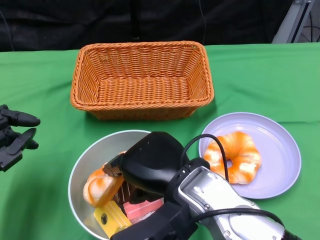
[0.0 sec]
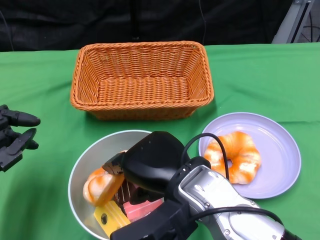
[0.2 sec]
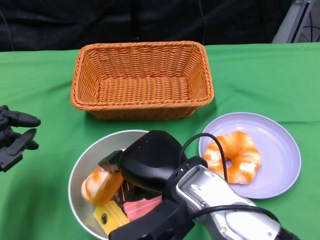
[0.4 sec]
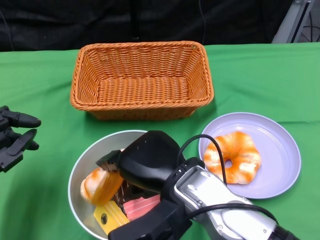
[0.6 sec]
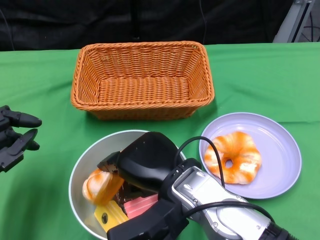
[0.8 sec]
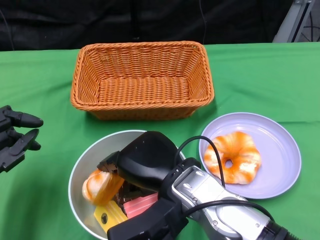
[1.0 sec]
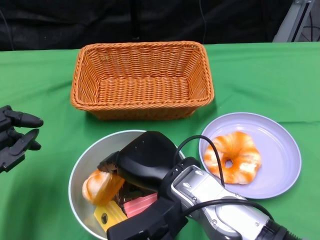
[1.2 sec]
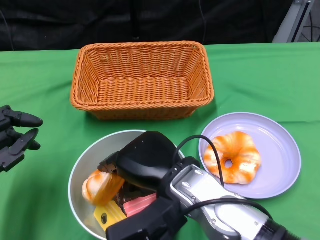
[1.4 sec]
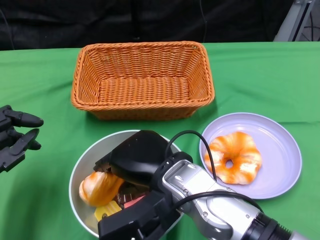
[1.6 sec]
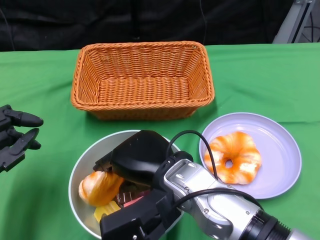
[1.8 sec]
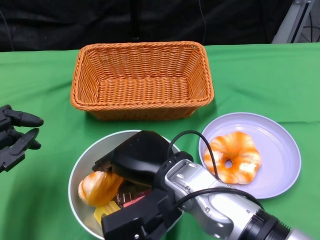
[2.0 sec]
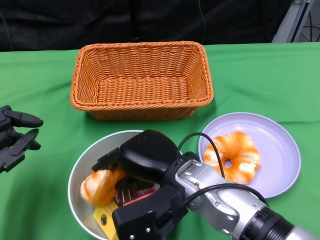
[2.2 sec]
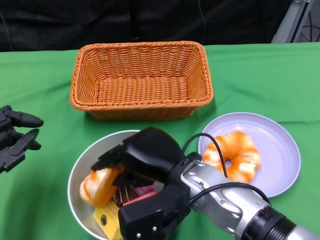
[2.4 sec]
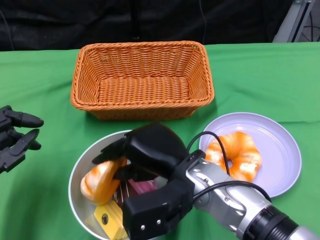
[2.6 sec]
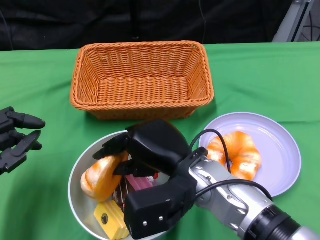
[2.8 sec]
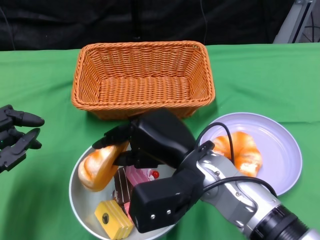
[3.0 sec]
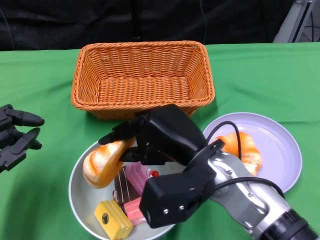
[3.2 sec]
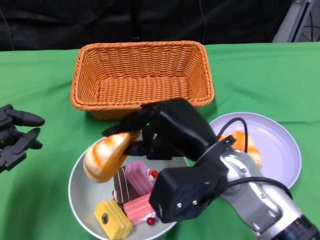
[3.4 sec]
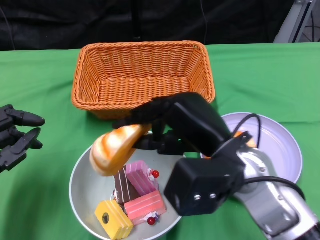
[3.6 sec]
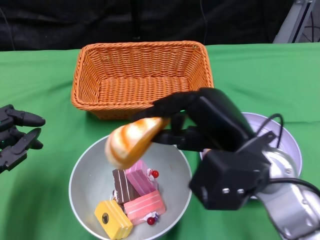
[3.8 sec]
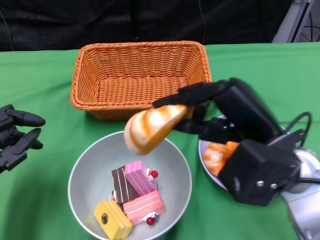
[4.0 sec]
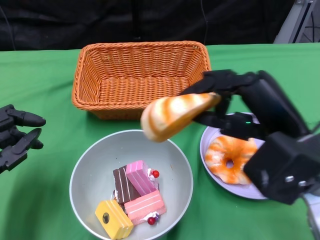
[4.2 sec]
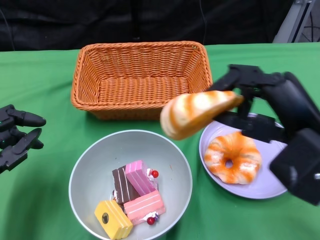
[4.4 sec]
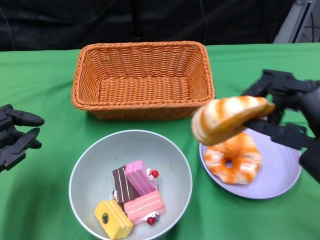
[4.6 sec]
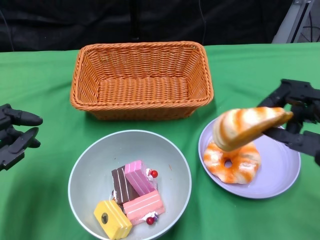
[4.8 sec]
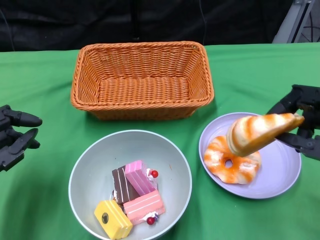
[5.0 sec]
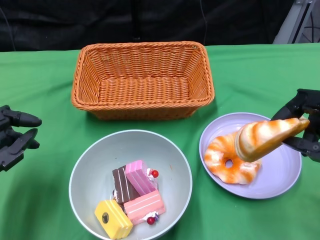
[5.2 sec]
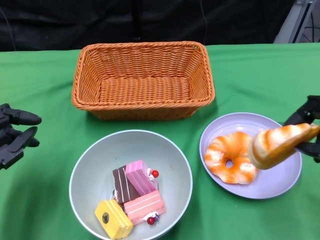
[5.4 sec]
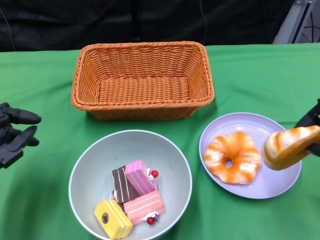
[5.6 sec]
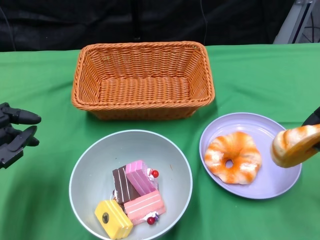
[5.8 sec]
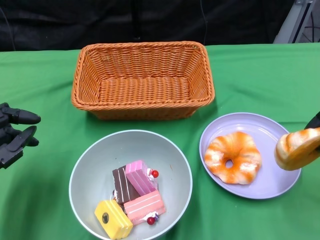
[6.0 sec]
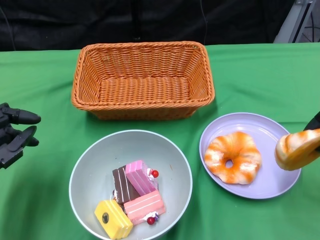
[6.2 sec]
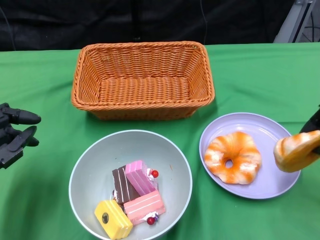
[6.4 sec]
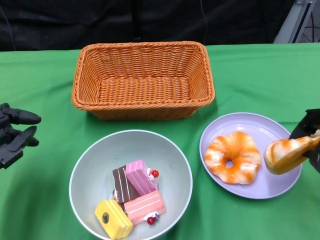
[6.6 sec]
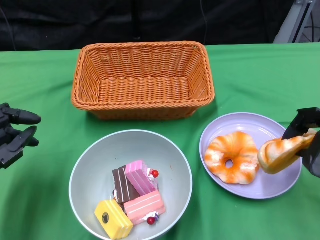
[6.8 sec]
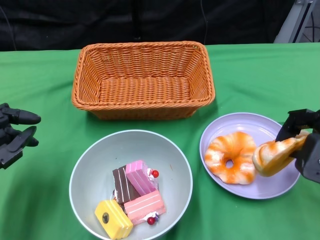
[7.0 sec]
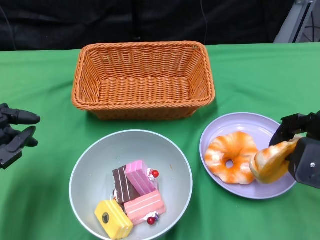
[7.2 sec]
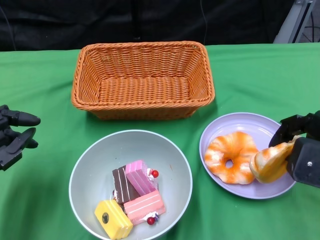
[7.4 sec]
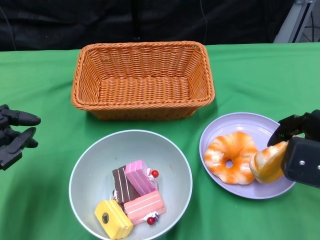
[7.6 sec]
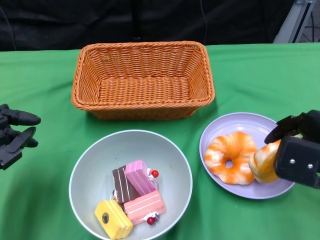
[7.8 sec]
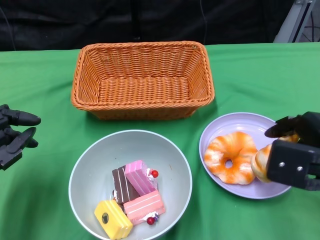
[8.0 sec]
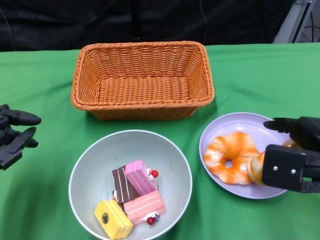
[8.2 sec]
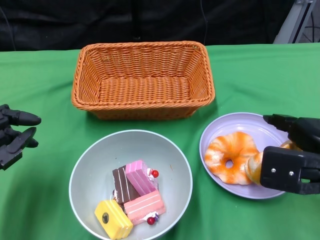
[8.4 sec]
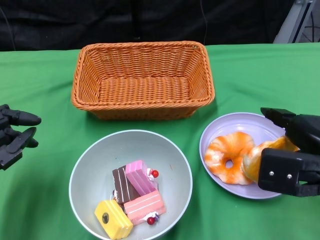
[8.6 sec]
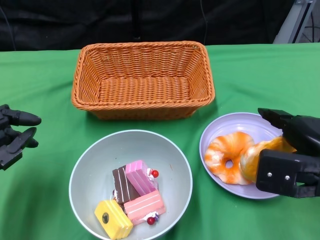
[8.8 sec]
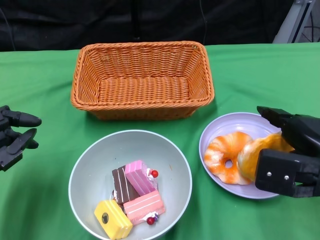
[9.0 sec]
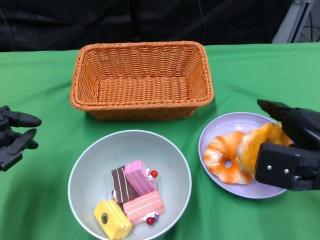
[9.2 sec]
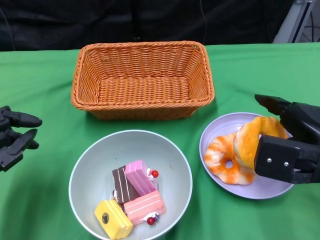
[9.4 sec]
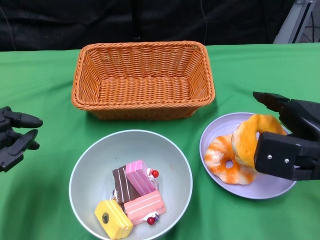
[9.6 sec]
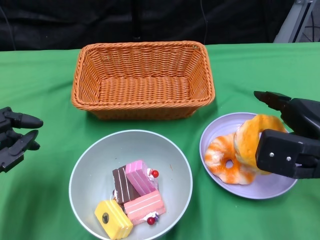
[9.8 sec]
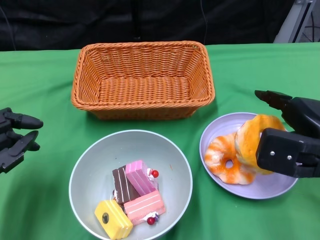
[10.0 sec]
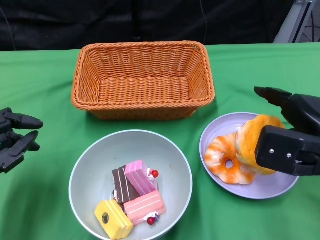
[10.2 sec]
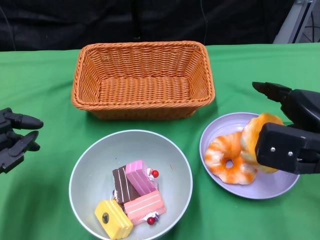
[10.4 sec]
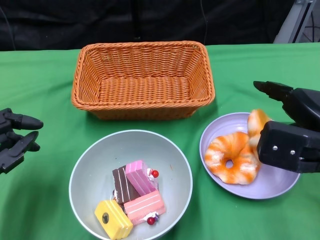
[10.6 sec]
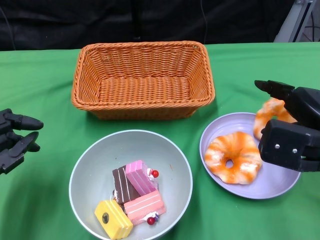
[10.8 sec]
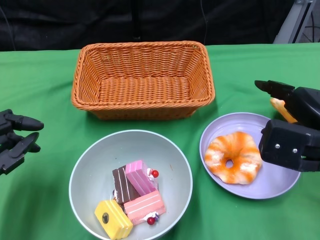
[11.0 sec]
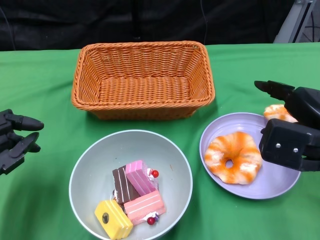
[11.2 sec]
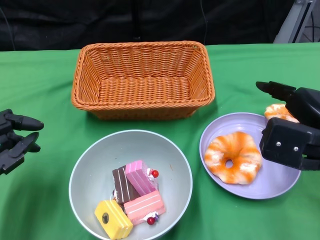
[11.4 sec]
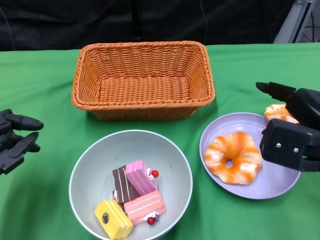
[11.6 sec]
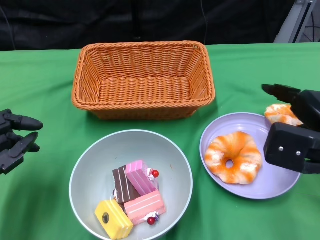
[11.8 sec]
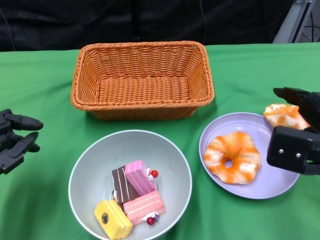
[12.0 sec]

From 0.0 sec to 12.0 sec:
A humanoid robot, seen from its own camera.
From 0.0 sec to 1.6 sec: The hands stay close to where they were, moving slightly.
From 3.0 sec to 4.4 sec: The right hand heads to the right and upward, covering roughly 15 cm.
From 4.4 sec to 6.0 sec: The right hand shifts about 10 cm to the right.
From 6.0 sec to 7.6 sec: The right hand shifts by about 5 cm.
From 7.6 sec to 12.0 sec: The hands make only small movements.

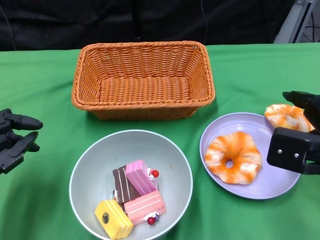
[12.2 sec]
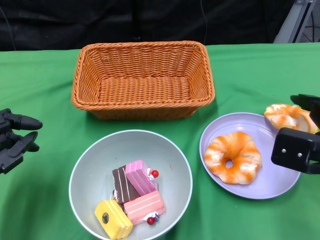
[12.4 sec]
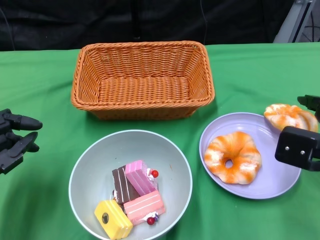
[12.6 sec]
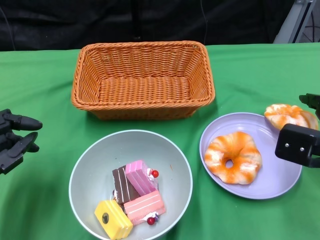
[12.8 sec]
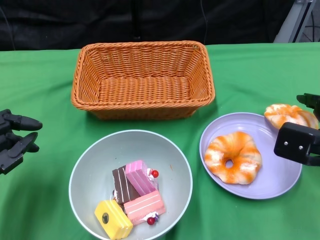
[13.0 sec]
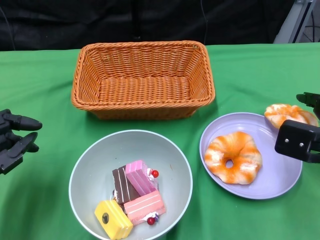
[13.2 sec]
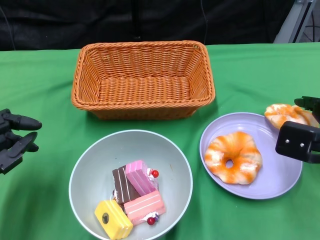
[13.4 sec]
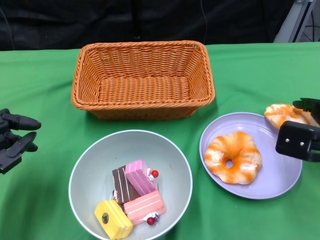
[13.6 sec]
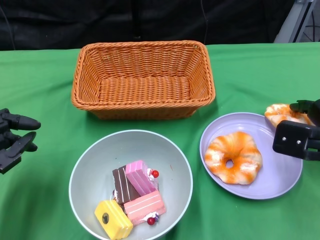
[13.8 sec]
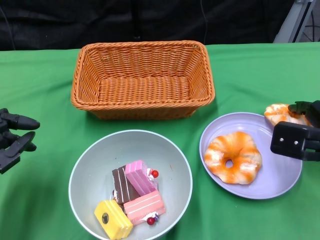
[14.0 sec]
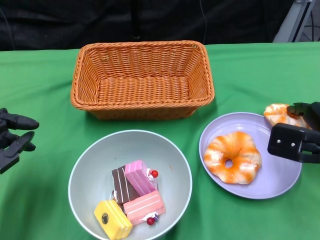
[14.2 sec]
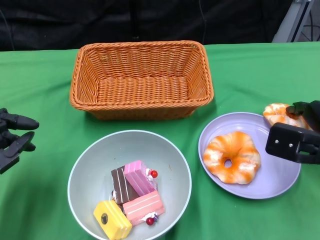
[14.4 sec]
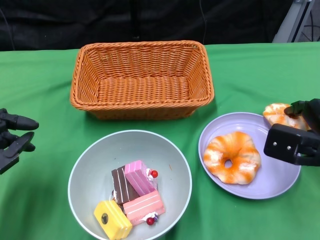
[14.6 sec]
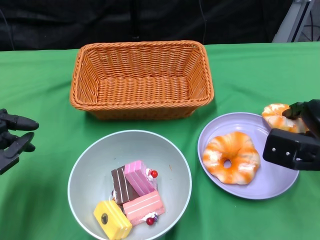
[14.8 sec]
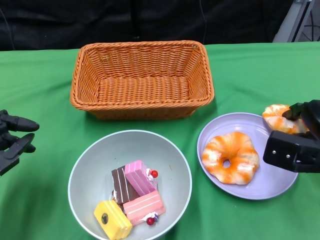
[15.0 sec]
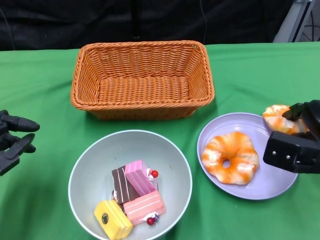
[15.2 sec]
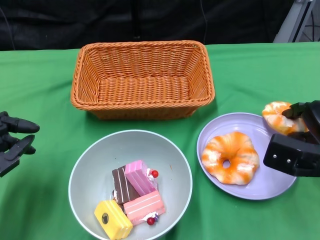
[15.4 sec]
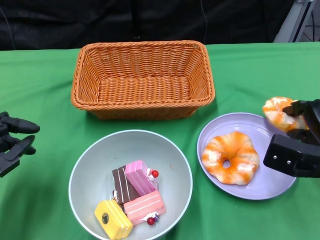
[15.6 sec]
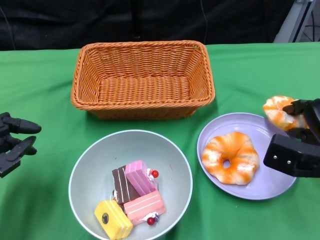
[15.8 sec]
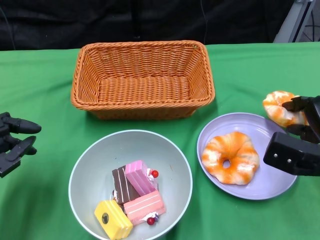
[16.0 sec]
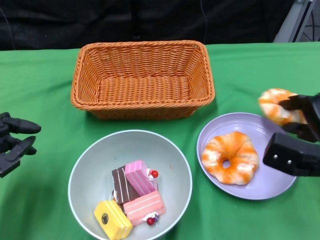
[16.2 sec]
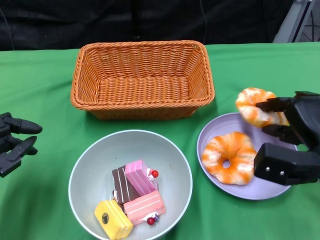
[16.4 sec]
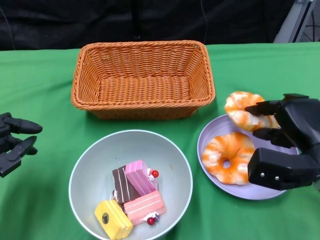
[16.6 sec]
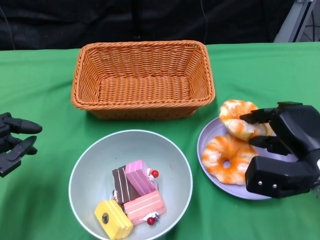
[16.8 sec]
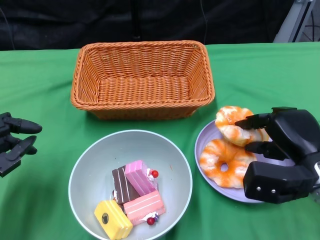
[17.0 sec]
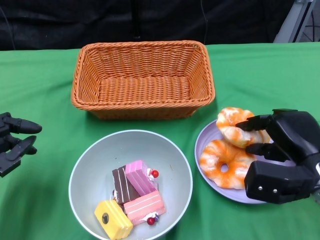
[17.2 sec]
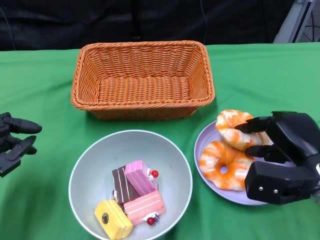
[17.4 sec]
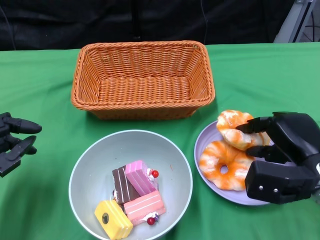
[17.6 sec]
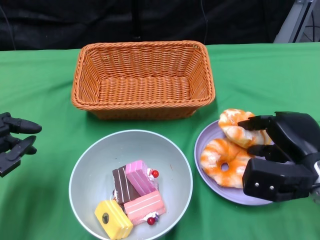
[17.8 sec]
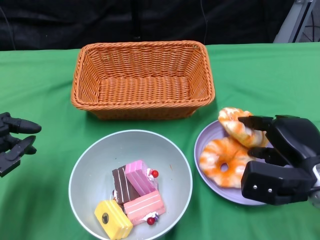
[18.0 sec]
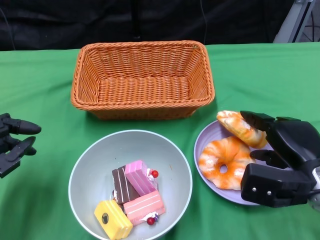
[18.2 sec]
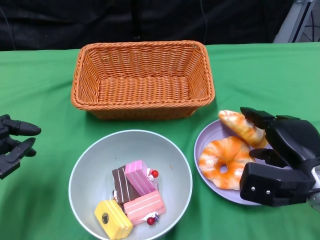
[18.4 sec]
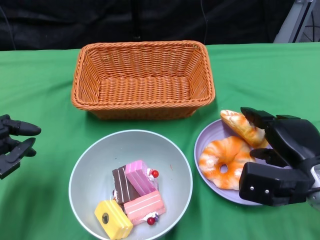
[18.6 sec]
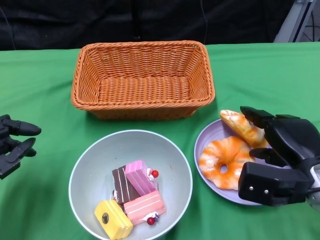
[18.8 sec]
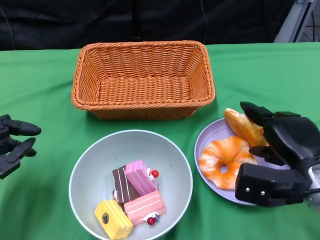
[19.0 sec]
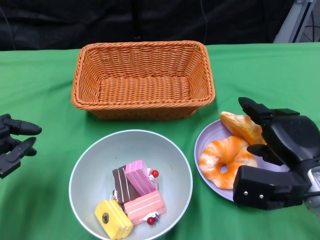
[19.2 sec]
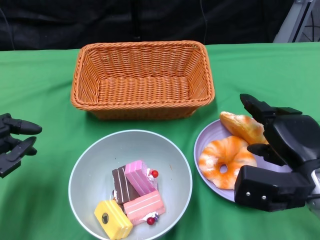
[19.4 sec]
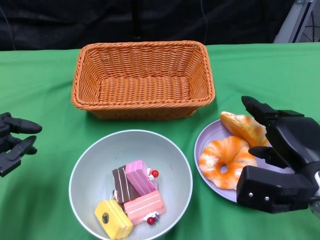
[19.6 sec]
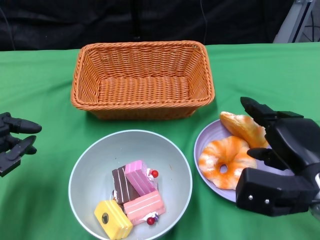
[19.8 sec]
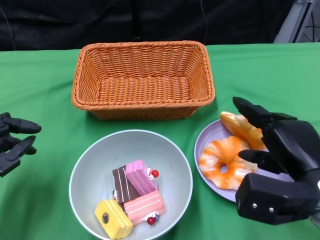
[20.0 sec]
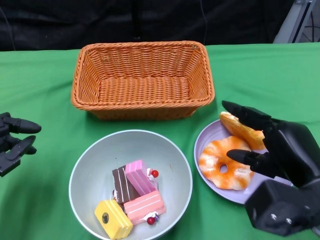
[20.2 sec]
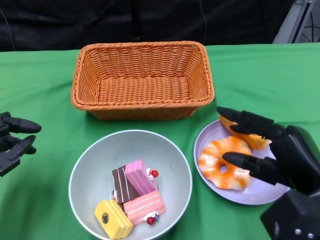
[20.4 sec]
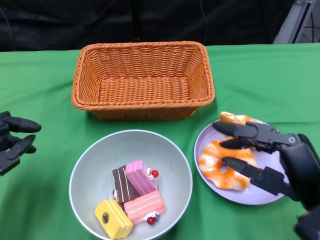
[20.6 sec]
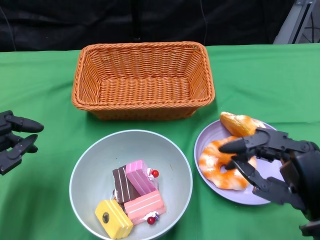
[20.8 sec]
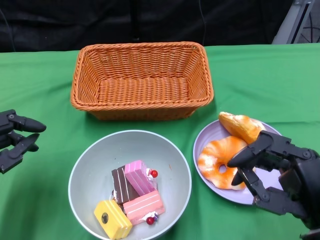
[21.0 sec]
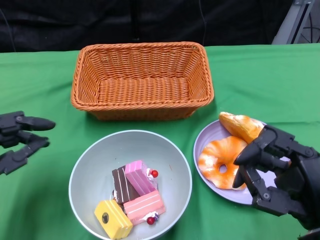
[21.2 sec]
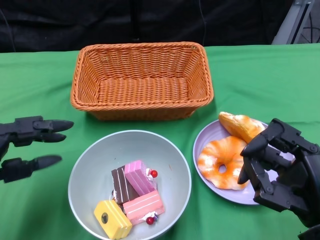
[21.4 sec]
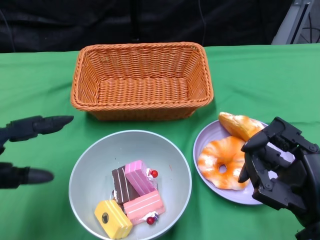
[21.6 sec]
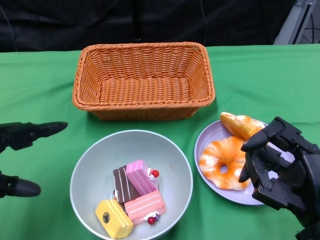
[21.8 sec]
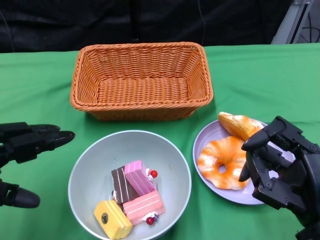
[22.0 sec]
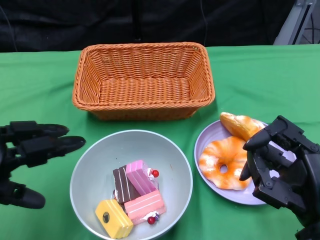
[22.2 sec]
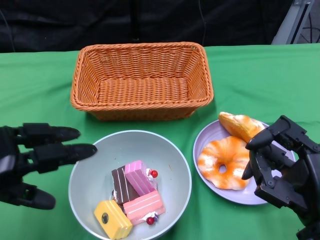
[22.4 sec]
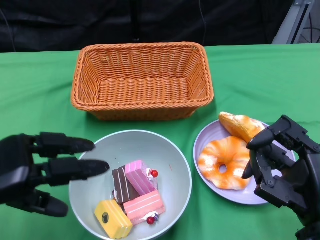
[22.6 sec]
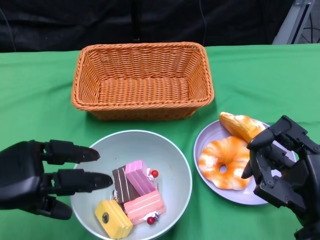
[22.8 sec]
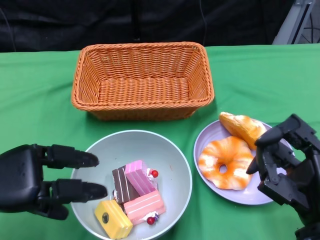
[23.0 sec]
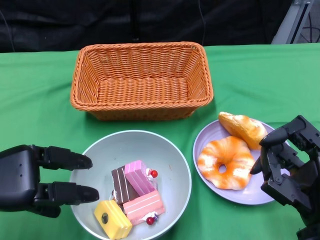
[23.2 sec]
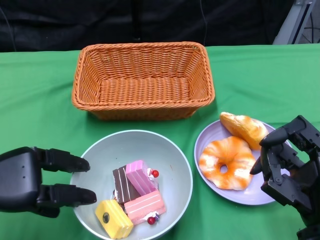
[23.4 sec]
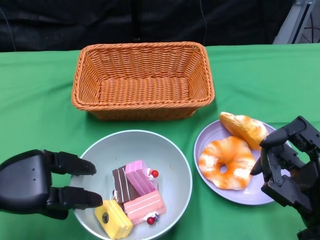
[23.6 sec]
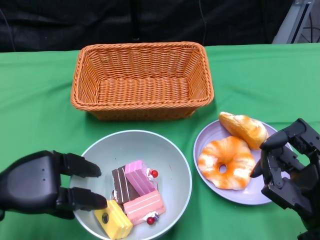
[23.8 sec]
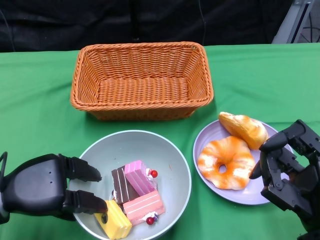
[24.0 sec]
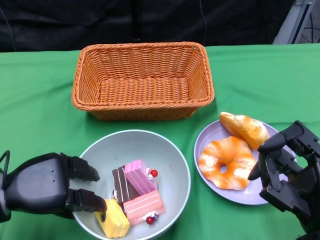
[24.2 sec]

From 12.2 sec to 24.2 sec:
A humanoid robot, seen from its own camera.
Step, from 12.2 sec to 19.6 sec: Pick up the bread with the right gripper and place it on the plate.
From 12.2 sec to 13.8 sec: The right hand changes place by approximately 5 cm.
From 13.8 sec to 15.2 sec: The hands make only small movements.
From 16.6 sec to 19.8 sec: The hands move only a little.
From 19.8 sec to 21.2 sec: The right hand heads backward, covering some 10 cm.
From 22.6 sec to 24.2 sec: The left hand is displaced downward by about 5 cm.
